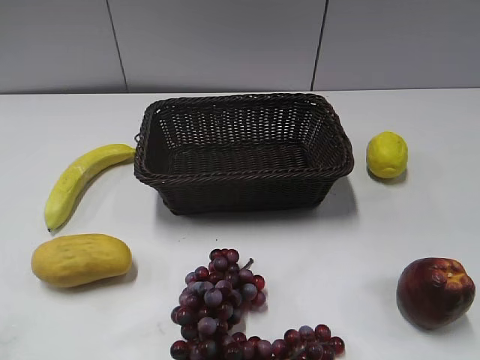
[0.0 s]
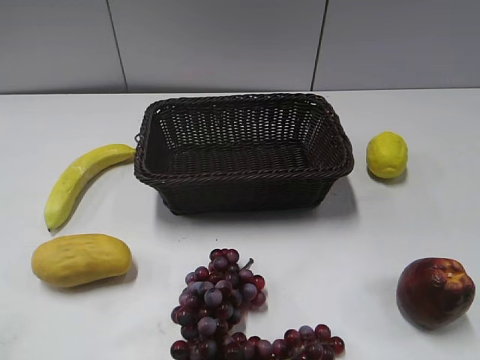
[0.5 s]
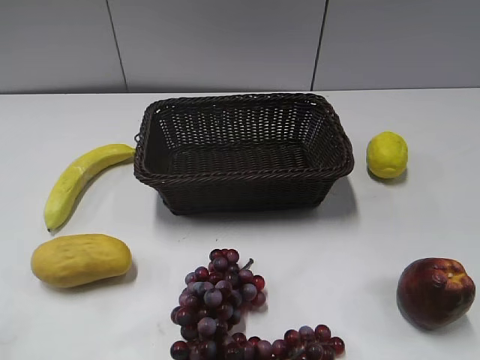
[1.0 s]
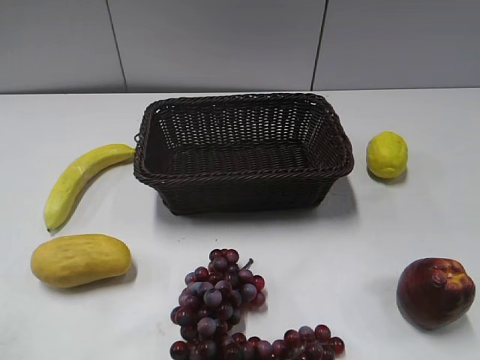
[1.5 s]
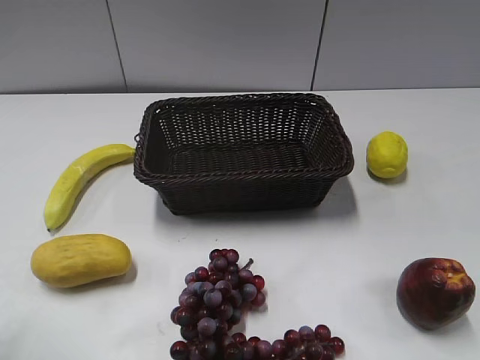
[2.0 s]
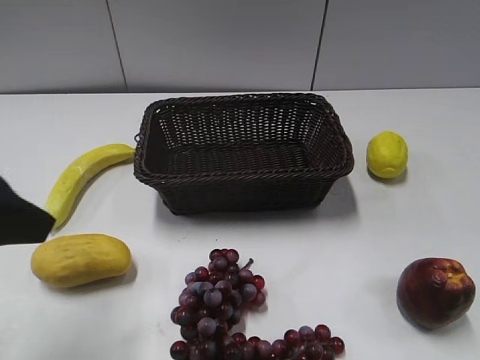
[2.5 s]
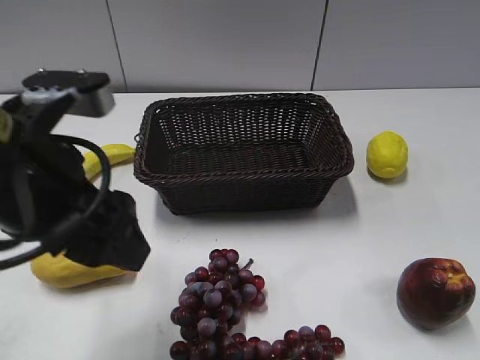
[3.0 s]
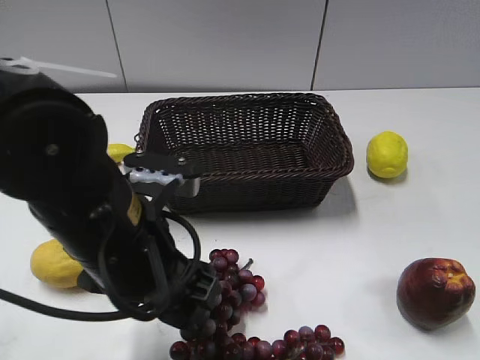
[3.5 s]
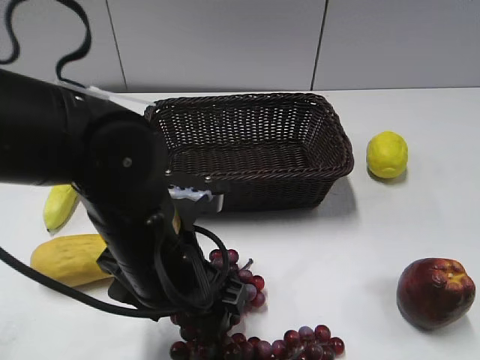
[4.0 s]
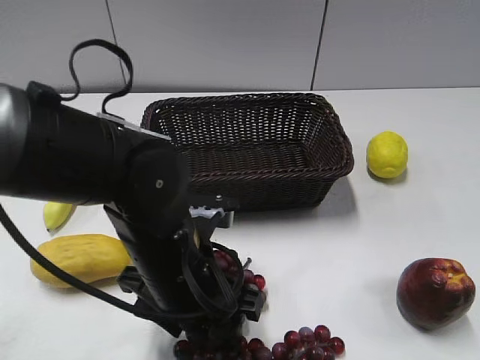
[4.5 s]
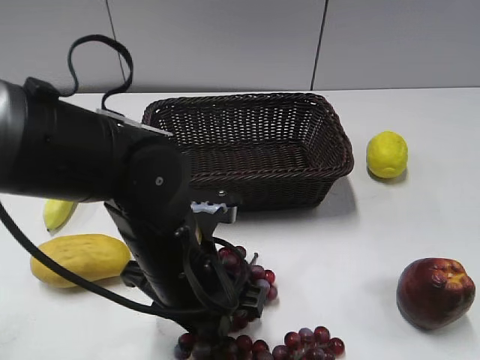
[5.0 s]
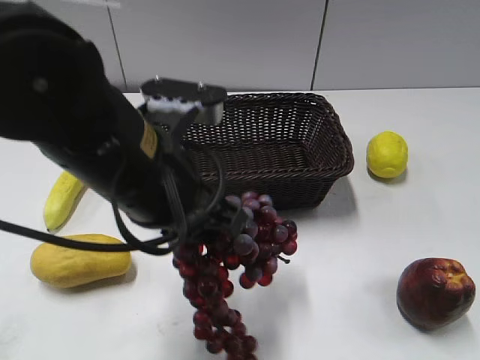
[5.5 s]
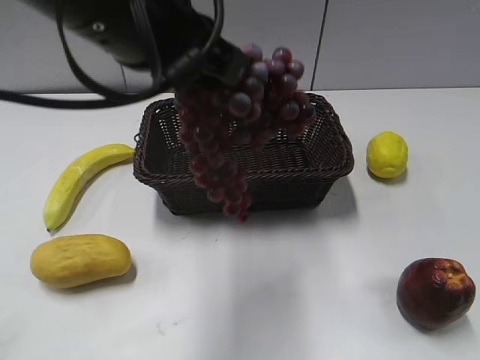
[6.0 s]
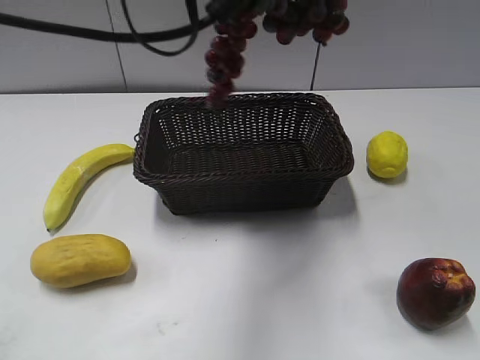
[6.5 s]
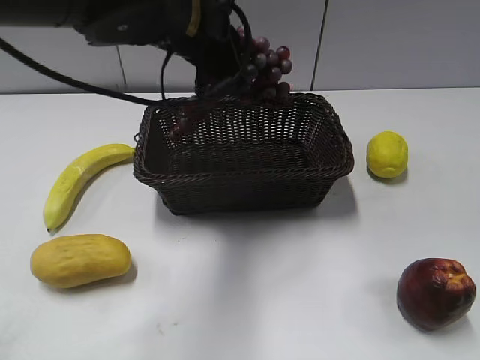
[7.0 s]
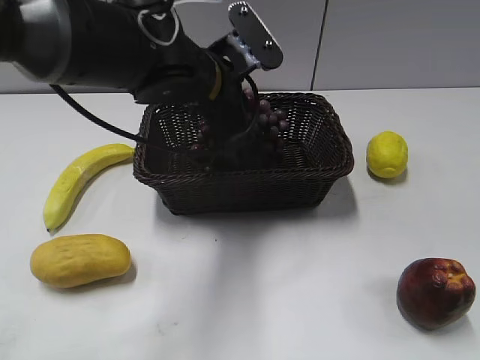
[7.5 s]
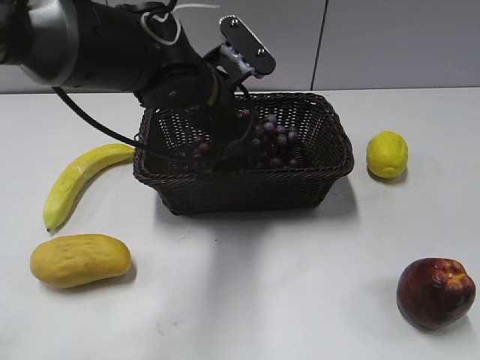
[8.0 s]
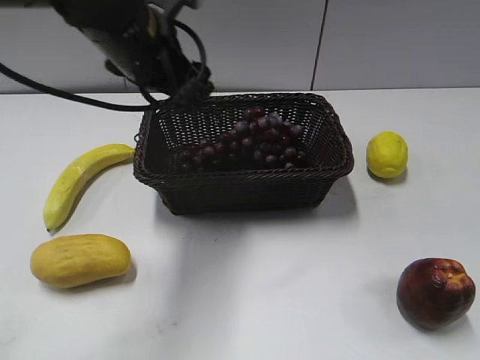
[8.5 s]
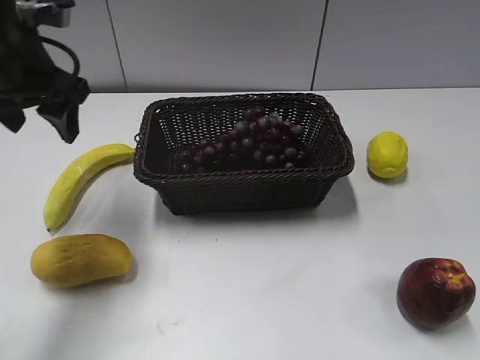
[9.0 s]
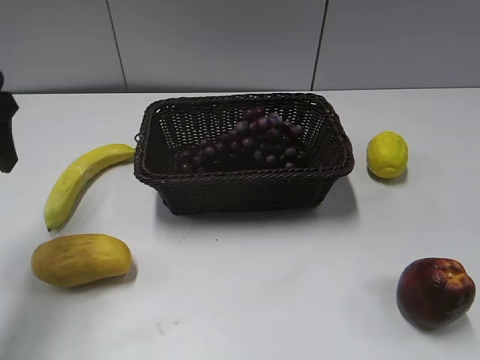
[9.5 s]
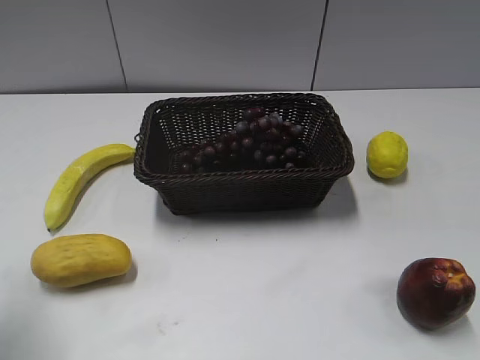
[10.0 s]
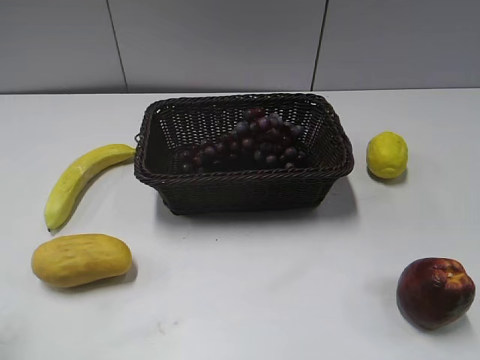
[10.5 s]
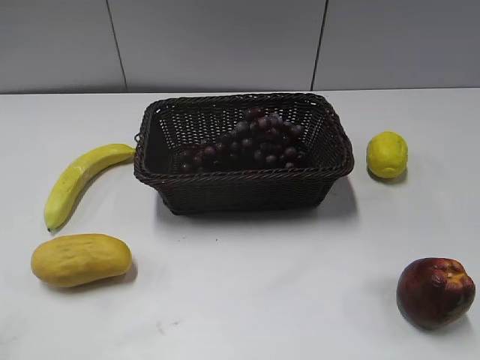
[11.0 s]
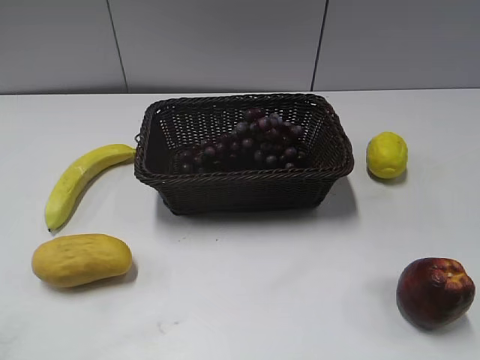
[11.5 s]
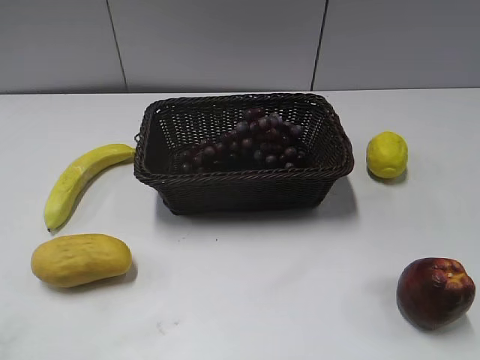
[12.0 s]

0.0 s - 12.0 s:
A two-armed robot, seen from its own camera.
Step, 2.5 s - 4.5 s: Grasp the grape with left gripper.
Step, 5.0 s - 8.0 s: Place the grape in the basket with left gripper.
2.0 s - 4.0 s: The left gripper shifts some 25 cm to the right, downward and forward.
4.0 s - 6.0 s: The left gripper is displaced upward by some 20 cm, and closes.
6.0 s - 8.0 s: The left gripper moves downward and forward, approximately 20 cm, and opens up.
8.0 s - 10.0 s: The left gripper moves to the left and backward, about 30 cm.
10.0 s - 12.0 s: The left gripper moves backward, some 20 cm.
